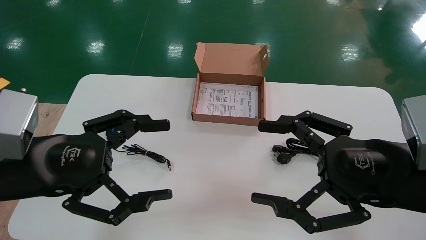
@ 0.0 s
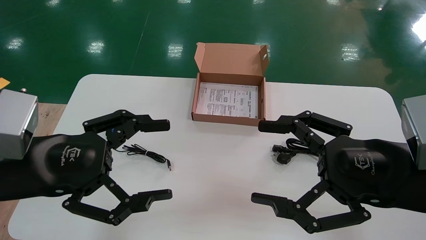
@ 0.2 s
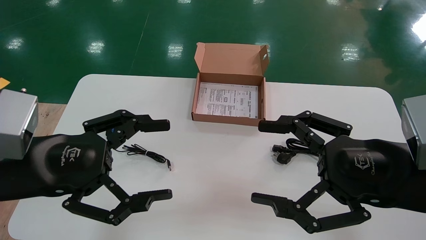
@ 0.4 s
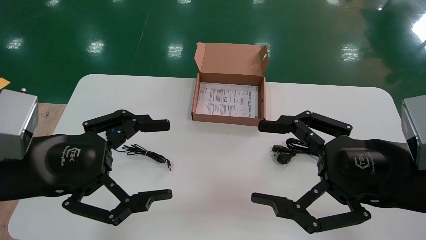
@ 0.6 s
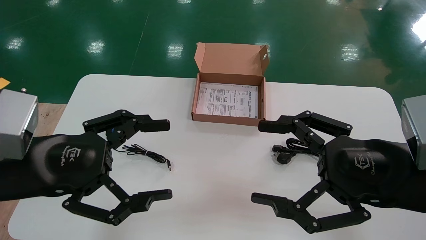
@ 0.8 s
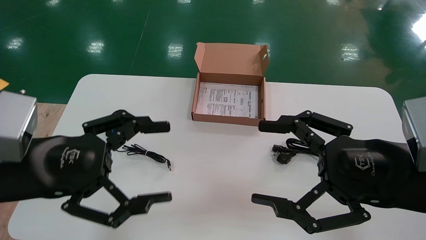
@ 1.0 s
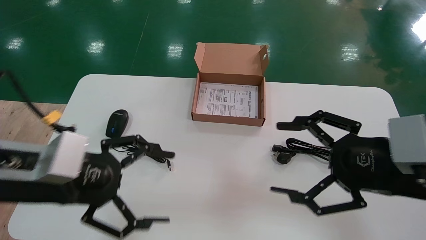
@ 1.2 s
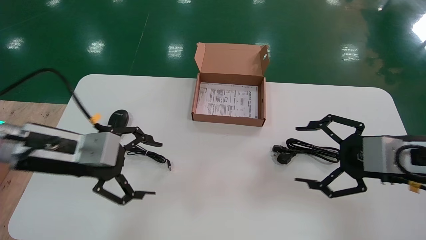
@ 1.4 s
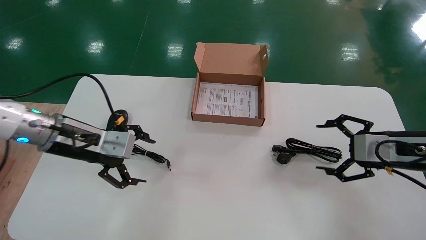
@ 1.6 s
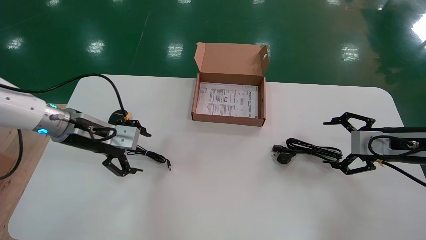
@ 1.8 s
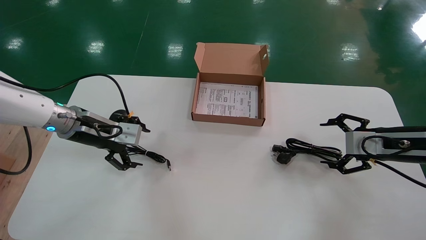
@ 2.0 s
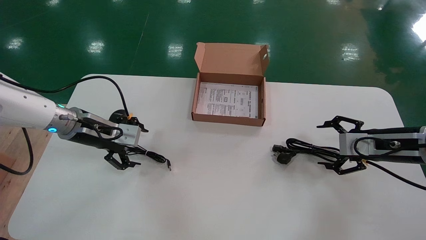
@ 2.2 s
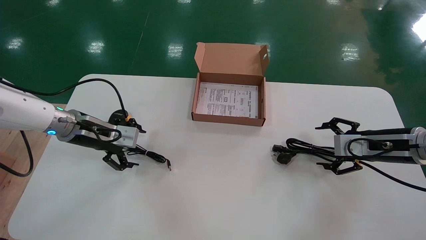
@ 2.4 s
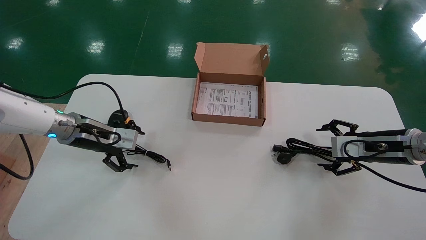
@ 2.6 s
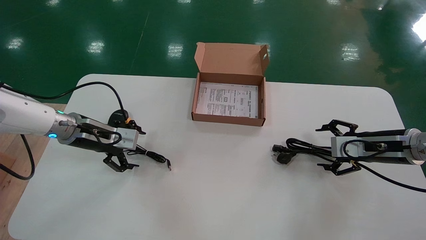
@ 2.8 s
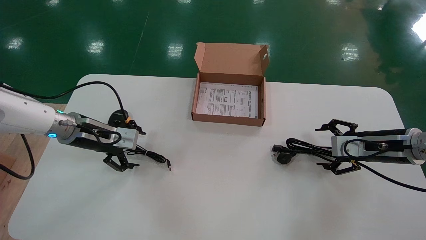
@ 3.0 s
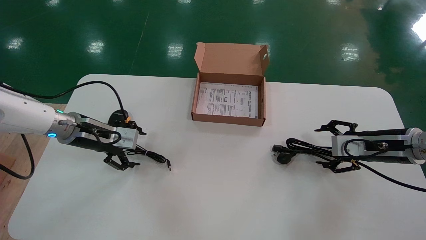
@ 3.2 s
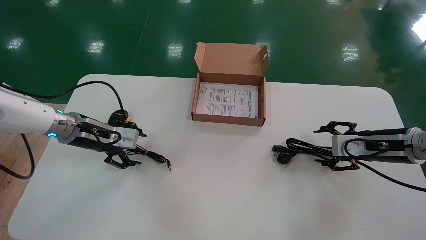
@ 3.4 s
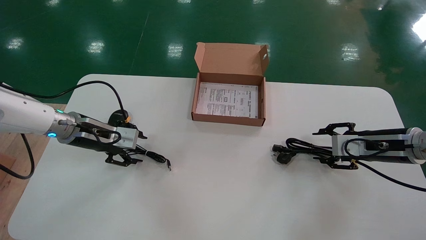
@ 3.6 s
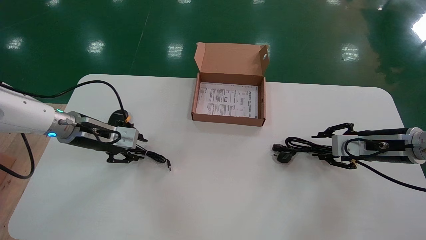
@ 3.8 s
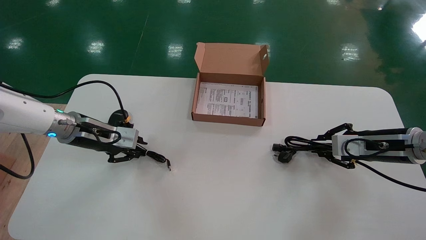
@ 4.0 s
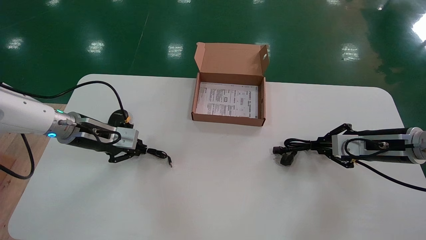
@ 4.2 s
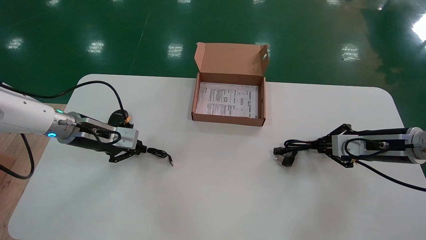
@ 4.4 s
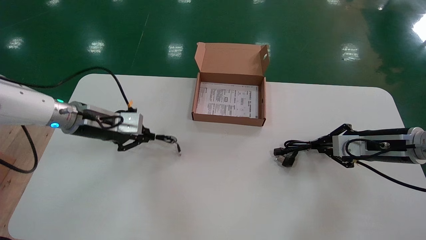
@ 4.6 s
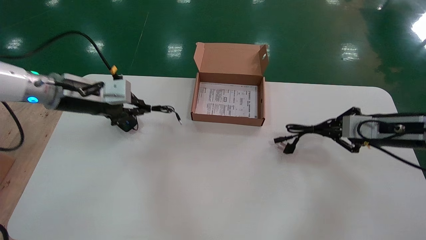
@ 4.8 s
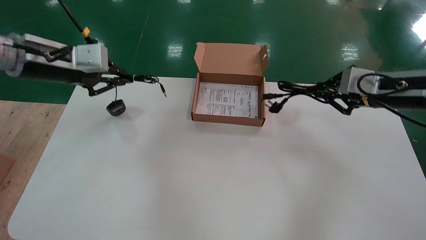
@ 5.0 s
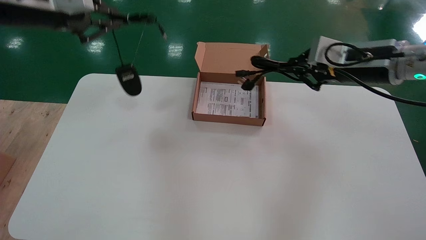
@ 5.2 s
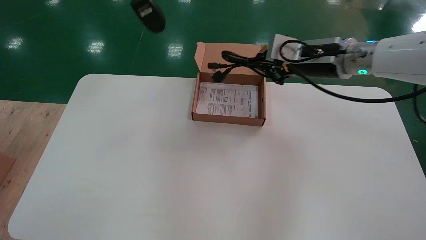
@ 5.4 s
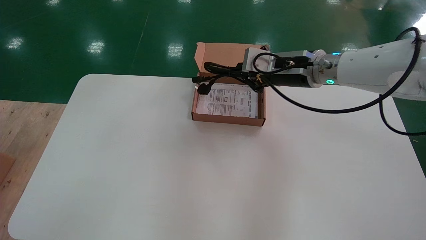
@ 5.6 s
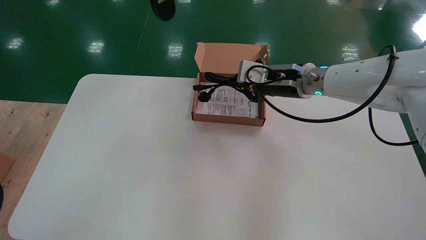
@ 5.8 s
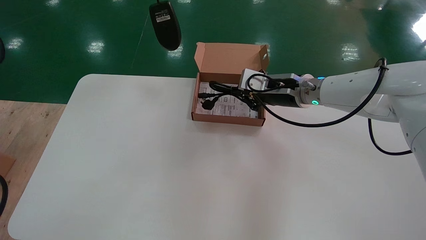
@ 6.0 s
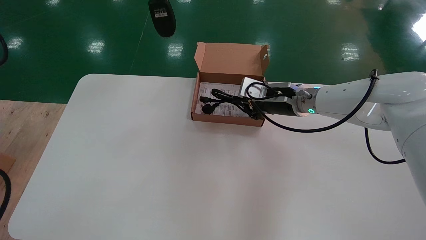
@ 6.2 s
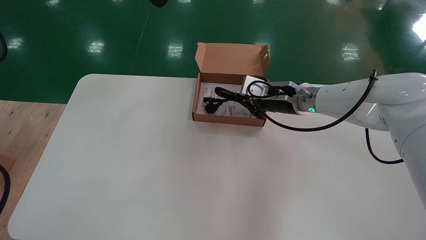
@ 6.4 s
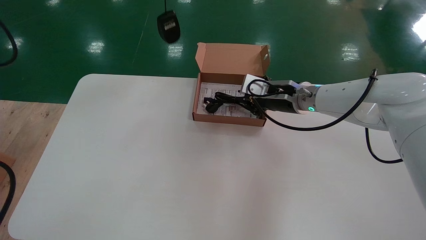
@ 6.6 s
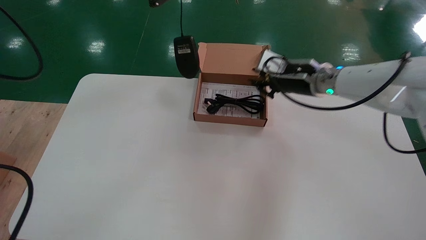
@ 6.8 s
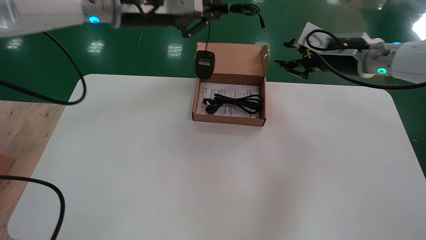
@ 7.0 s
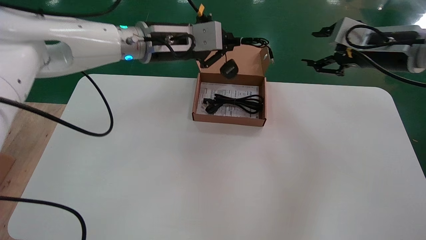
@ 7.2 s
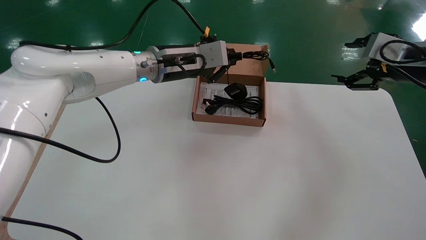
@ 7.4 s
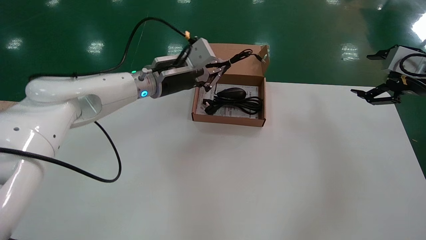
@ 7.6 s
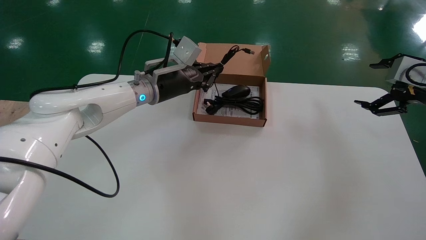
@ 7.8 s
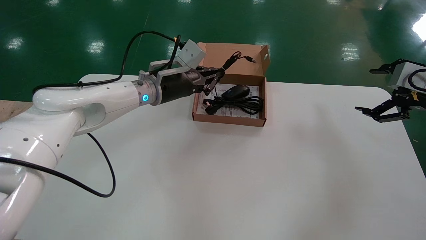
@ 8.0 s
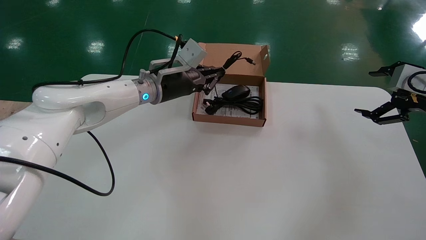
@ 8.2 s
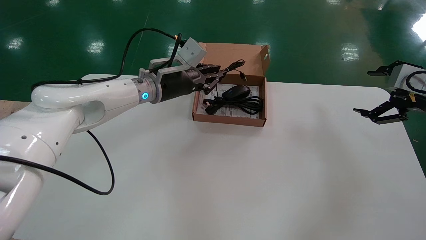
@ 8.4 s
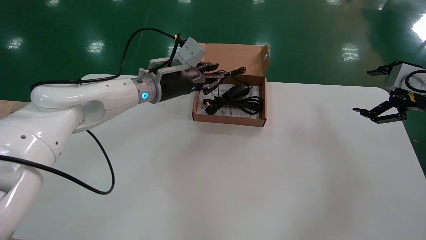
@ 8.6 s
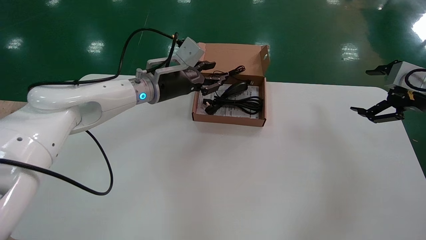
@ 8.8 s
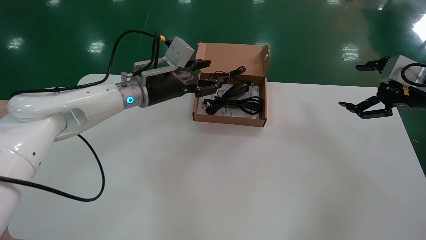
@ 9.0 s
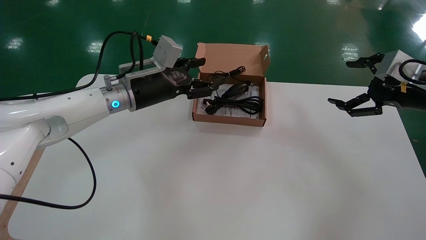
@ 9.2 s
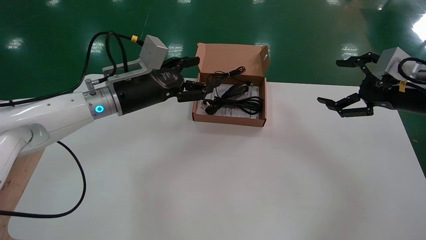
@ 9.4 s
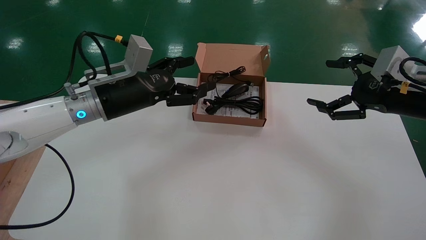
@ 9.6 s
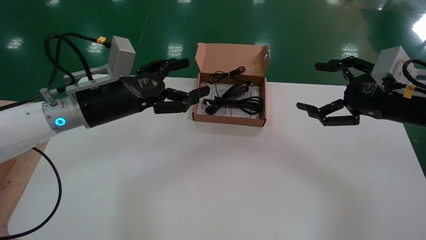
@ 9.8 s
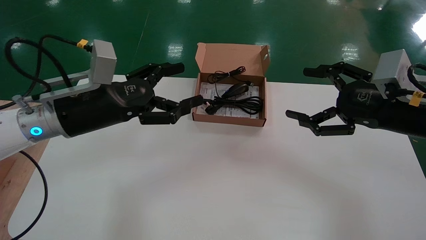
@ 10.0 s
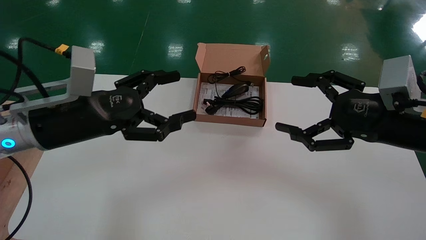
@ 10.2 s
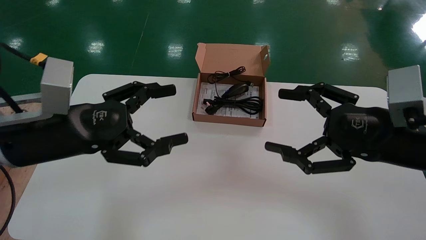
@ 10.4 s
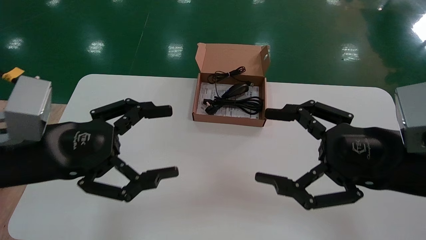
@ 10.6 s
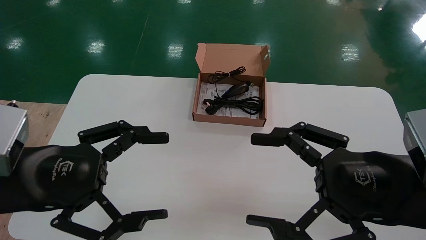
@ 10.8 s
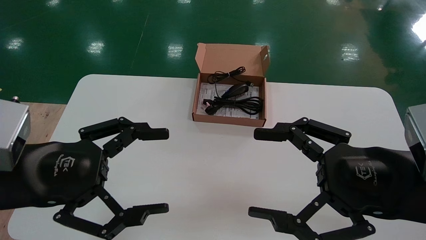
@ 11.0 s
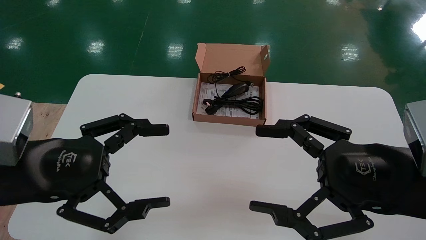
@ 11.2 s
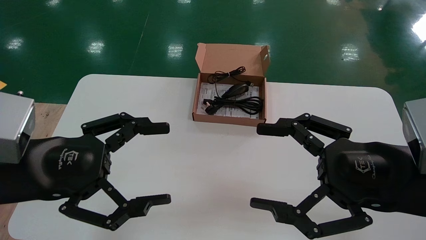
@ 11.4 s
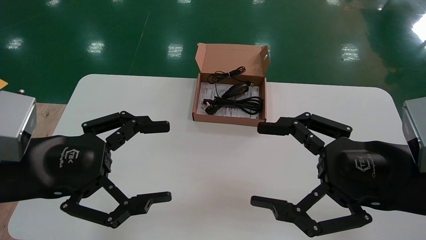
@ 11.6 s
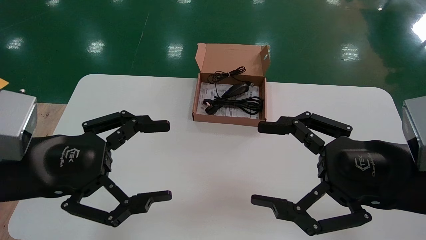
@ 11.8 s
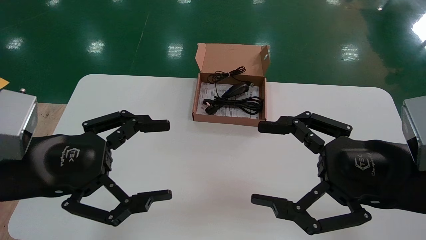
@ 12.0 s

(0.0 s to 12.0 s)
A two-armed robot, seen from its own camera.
Step, 1.4 s - 4.4 s: Simultaneously pick up the mouse and power cord from the accessory packaging area.
Step, 4.6 s - 9.2 s: Place the mouse and power cord into the box.
0.0 s - 1.6 s: The left gripper heads forward, covering some 15 cm. The right gripper moves forward and to the right, about 15 cm.
1.6 s - 3.0 s: Both grippers travel together forward, approximately 5 cm.
3.0 s - 4.4 s: The left gripper closes. Meanwhile the right gripper closes up.
4.4 s - 6.0 s: The left gripper moves upward, roughly 30 cm, while the right gripper heads to the left and upward, covering approximately 20 cm.
6.0 s - 7.6 s: The right gripper heads to the right, covering roughly 25 cm, and opens up; the left gripper shifts about 30 cm downward, forward and to the right.
7.6 s - 9.0 s: The left gripper opens.
9.0 s - 10.4 s: The left gripper is displaced backward and to the left by about 25 cm, and opens. Meanwhile the right gripper goes roughly 20 cm to the left and backward.
10.4 s - 12.0 s: The right gripper ends up roughly 5 cm from where it was. The left gripper shifts roughly 5 cm backward.

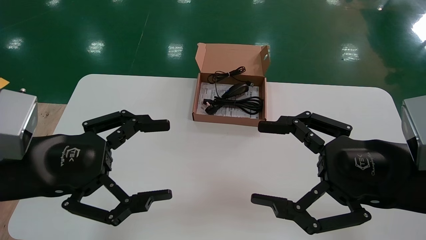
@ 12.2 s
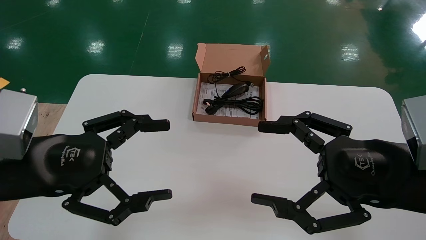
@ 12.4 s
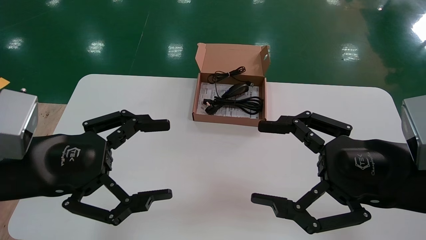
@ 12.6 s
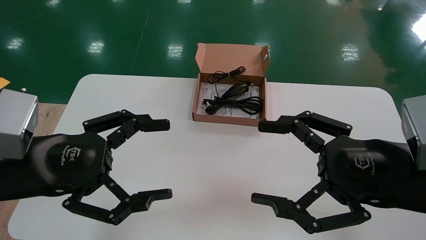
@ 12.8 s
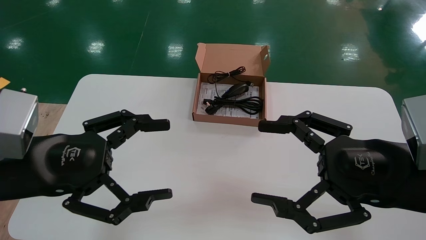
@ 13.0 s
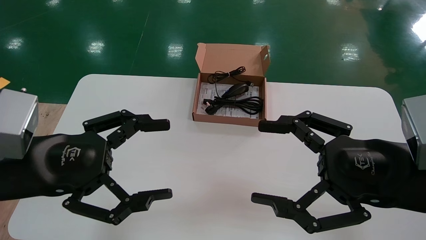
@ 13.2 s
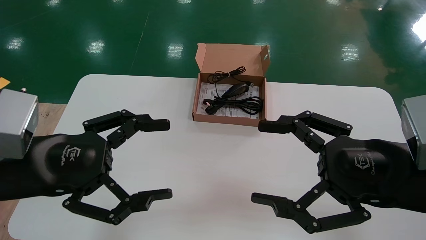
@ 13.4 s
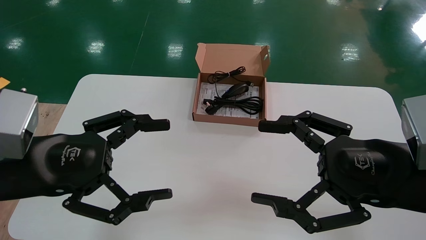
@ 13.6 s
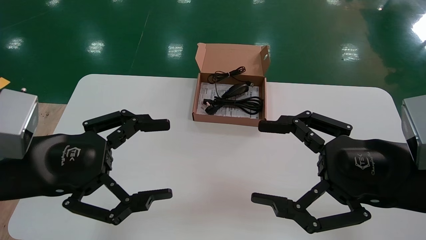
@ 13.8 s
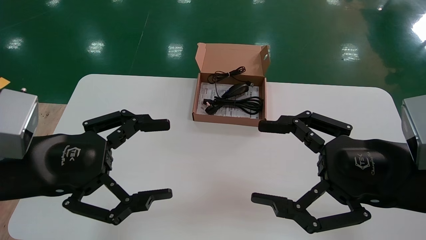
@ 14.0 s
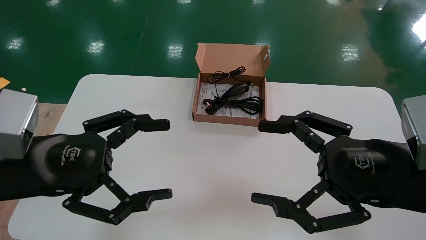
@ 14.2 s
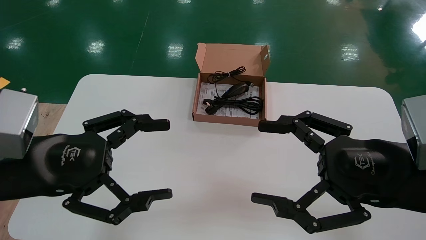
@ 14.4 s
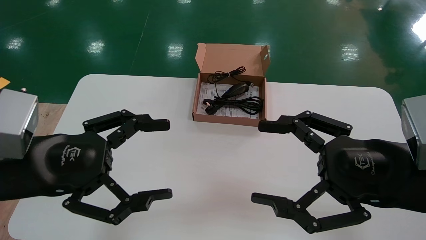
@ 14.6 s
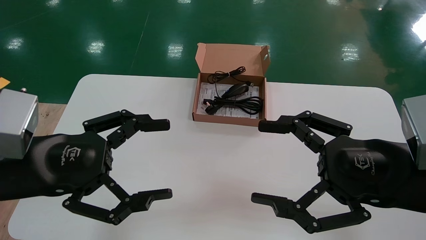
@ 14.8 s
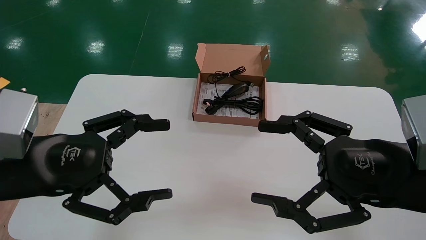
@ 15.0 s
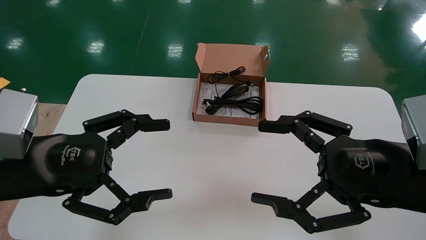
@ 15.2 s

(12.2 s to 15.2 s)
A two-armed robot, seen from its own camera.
12.2 s - 15.2 s: Neither gripper changes place.
